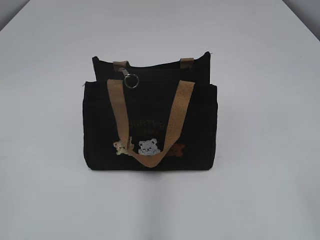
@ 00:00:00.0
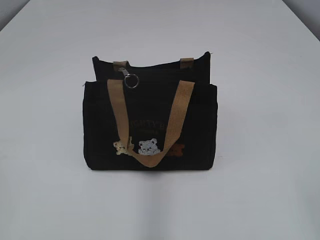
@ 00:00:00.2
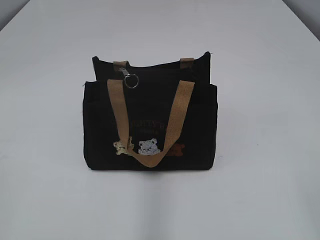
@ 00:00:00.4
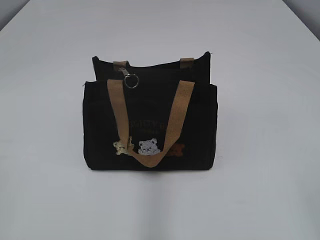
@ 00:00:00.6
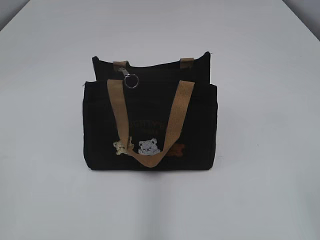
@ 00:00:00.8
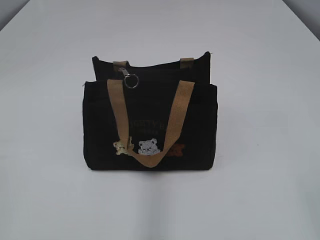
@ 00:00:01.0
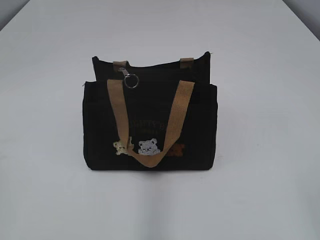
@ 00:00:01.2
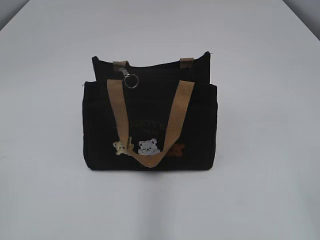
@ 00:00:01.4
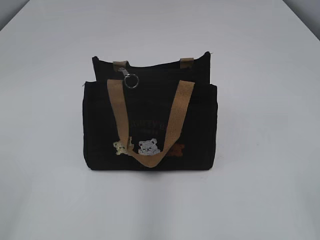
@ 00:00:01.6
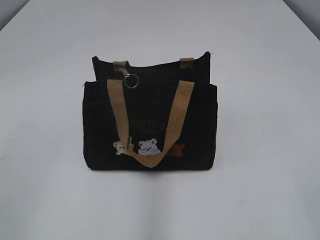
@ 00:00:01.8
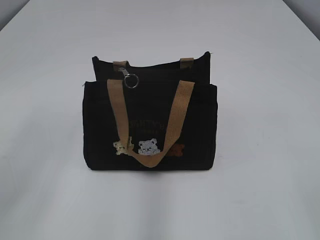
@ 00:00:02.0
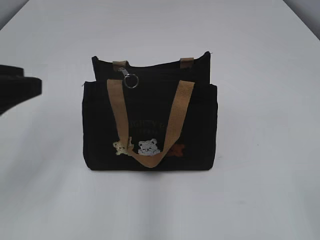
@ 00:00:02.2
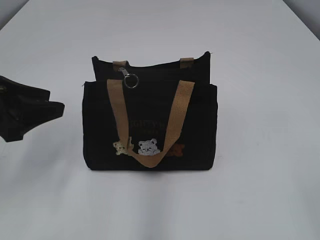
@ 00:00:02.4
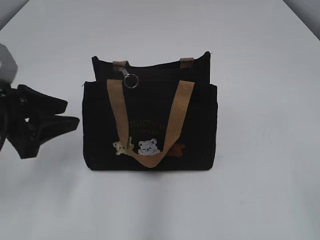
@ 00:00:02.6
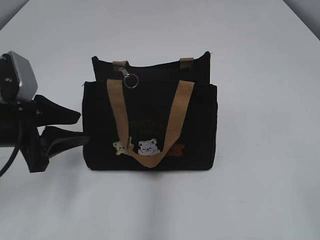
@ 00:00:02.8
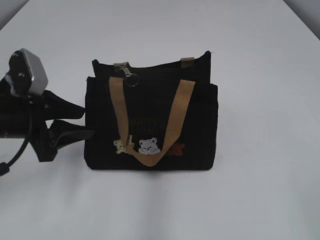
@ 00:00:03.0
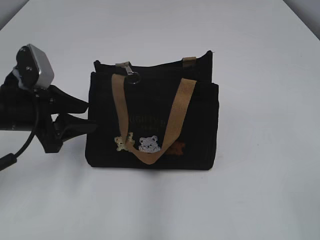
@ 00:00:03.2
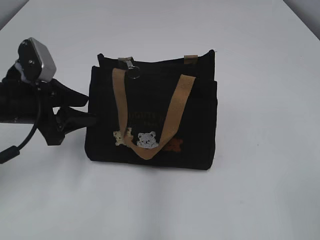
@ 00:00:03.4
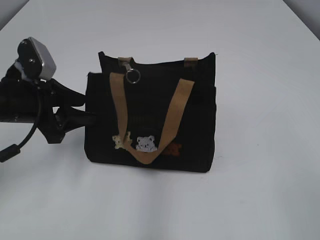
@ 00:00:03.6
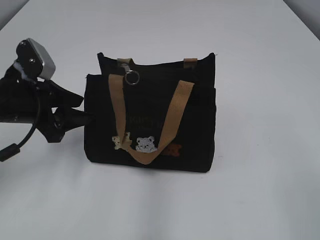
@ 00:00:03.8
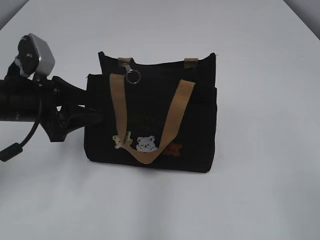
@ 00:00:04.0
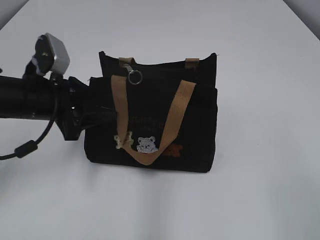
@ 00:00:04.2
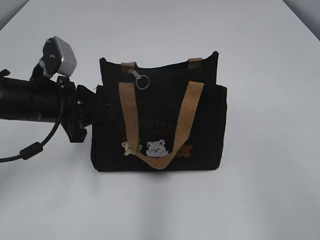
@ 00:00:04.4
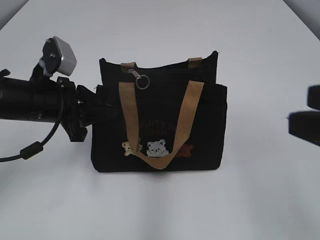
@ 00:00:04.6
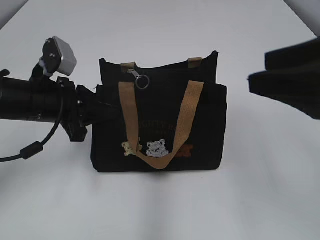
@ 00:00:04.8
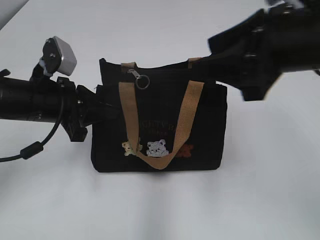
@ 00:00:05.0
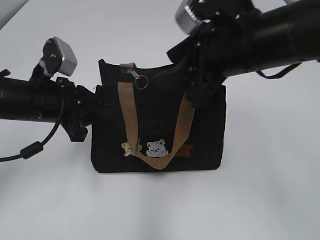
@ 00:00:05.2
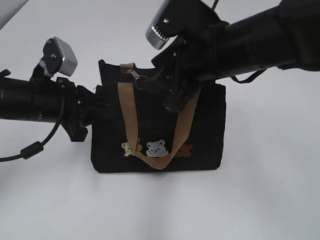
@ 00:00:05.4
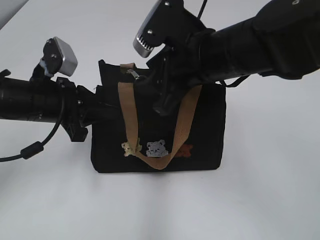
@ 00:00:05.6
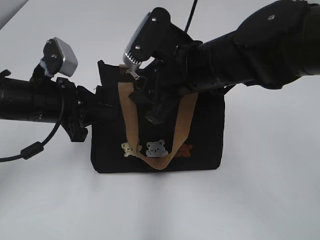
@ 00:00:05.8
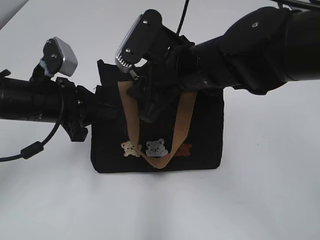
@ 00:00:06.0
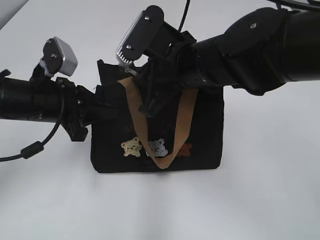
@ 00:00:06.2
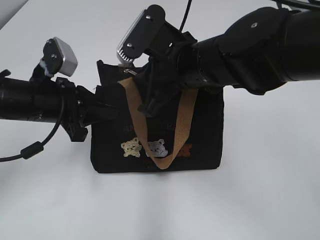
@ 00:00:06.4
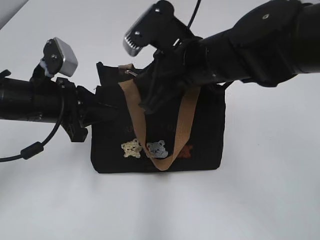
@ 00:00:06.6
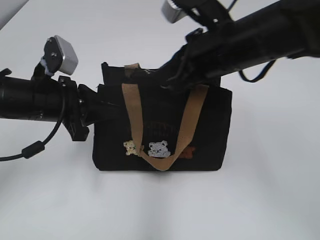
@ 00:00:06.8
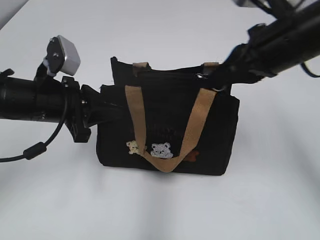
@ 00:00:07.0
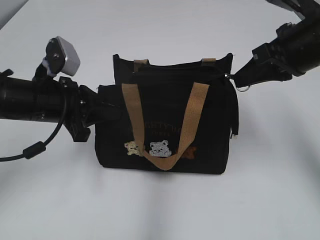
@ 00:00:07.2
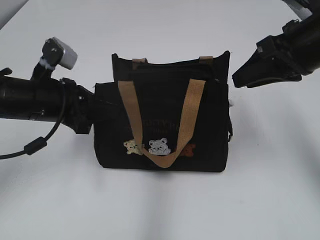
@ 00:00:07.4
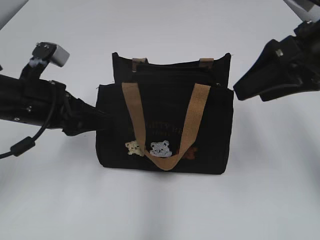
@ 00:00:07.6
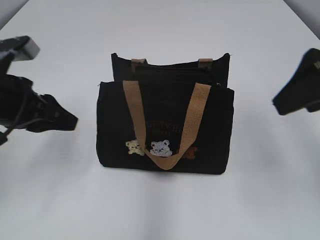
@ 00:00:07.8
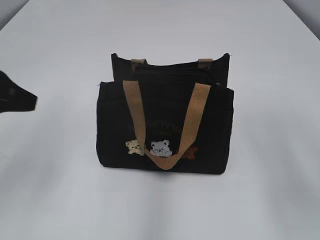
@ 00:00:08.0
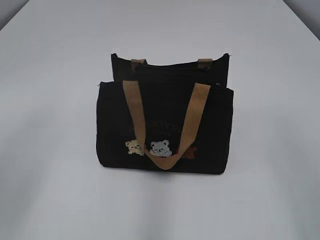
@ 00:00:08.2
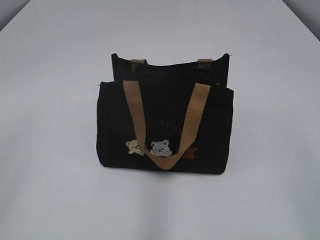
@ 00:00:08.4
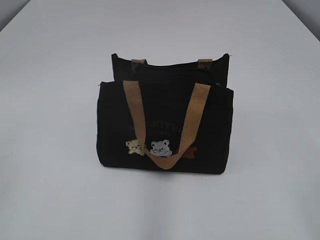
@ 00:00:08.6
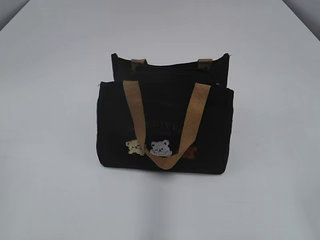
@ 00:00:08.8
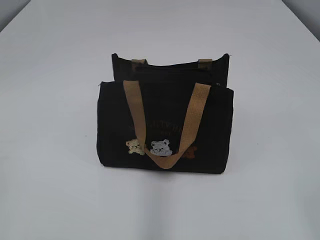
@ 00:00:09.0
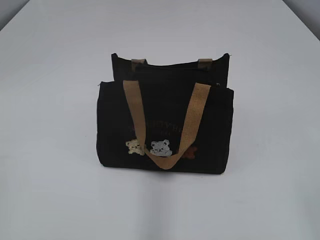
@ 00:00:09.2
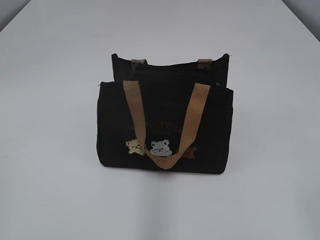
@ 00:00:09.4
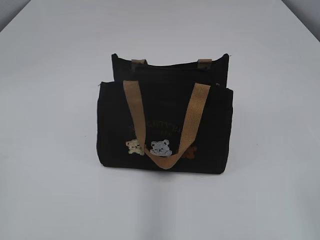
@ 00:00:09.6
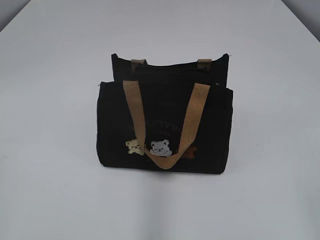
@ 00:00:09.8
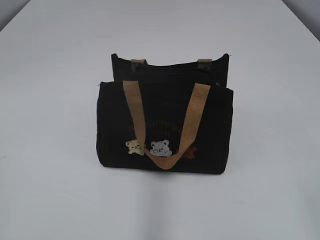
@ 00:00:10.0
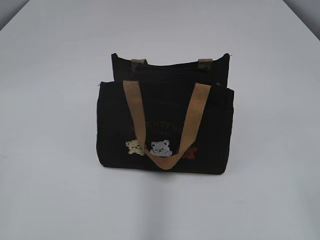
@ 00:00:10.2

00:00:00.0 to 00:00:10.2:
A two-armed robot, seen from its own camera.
Step, 00:00:00.0 to 00:00:07.2: Pull open the zipper with your right hand.
Step, 00:00:07.4 to 00:00:07.6: Hold the bag with your left hand.
00:00:01.4 to 00:00:03.0: The left gripper shifts roughly 25 cm forward and downward, and opens.
00:00:03.0 to 00:00:04.4: The right gripper shifts by roughly 5 cm. Meanwhile the left gripper changes place by approximately 5 cm, and closes up.
00:00:04.4 to 00:00:05.8: The right gripper moves forward and to the left, some 30 cm.
00:00:05.8 to 00:00:07.2: The right gripper travels to the right by some 15 cm, and closes its fingers.
00:00:07.2 to 00:00:08.8: The left gripper moves backward, to the left and upward, some 30 cm, and opens. The right gripper travels backward by some 30 cm, and opens.

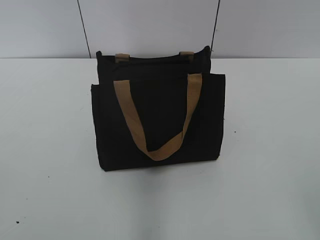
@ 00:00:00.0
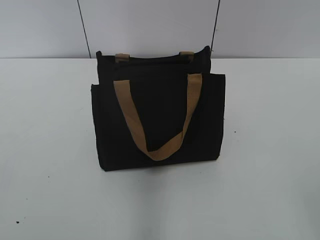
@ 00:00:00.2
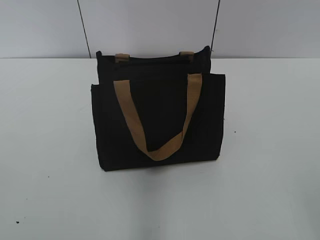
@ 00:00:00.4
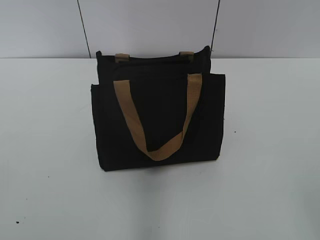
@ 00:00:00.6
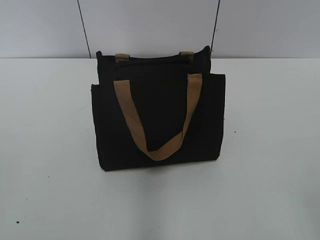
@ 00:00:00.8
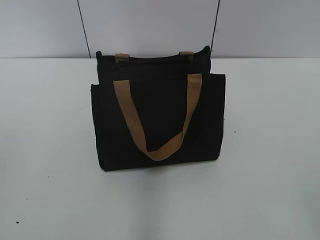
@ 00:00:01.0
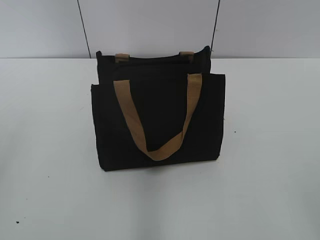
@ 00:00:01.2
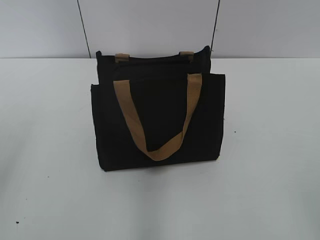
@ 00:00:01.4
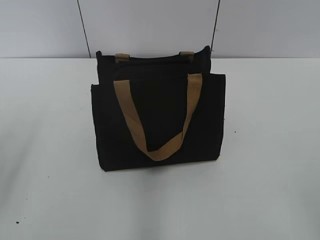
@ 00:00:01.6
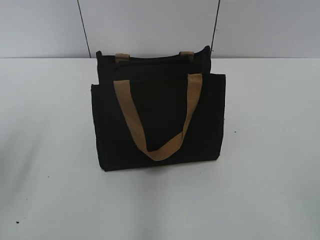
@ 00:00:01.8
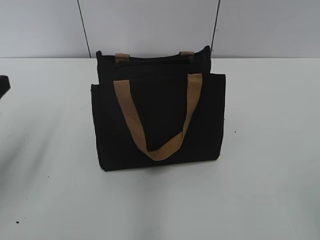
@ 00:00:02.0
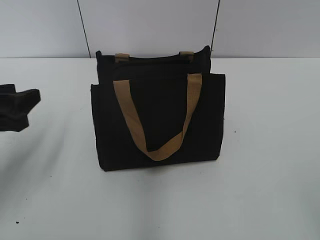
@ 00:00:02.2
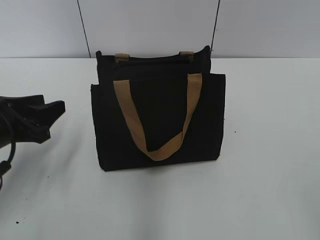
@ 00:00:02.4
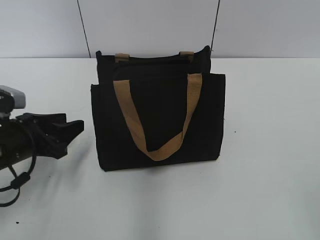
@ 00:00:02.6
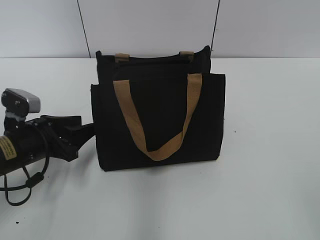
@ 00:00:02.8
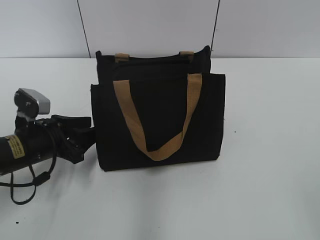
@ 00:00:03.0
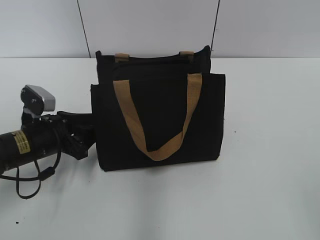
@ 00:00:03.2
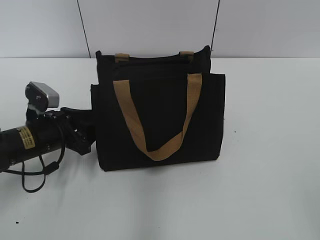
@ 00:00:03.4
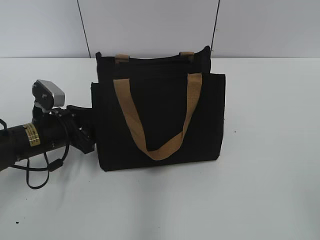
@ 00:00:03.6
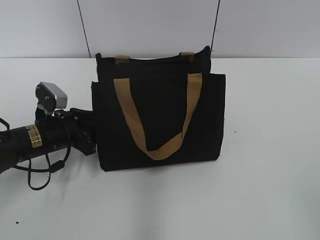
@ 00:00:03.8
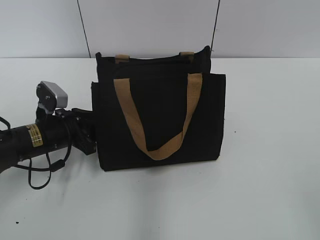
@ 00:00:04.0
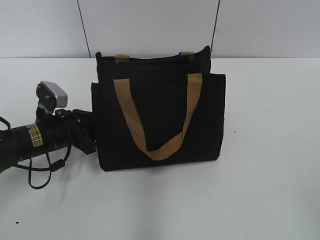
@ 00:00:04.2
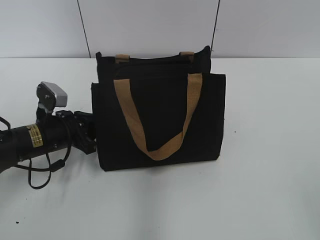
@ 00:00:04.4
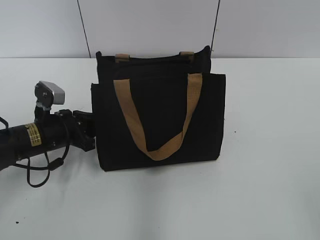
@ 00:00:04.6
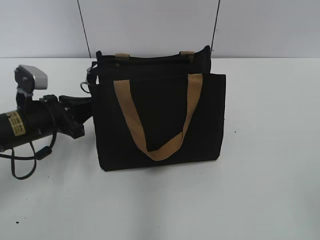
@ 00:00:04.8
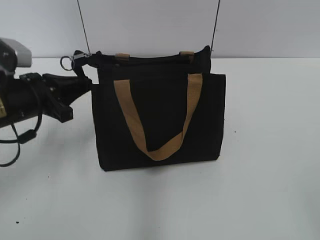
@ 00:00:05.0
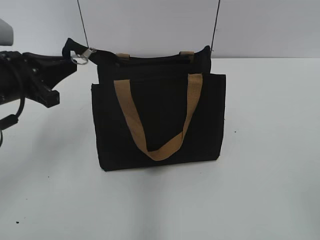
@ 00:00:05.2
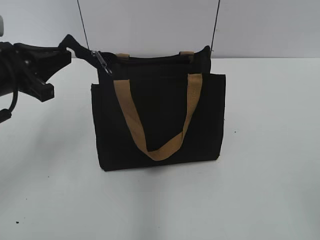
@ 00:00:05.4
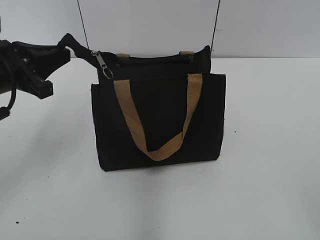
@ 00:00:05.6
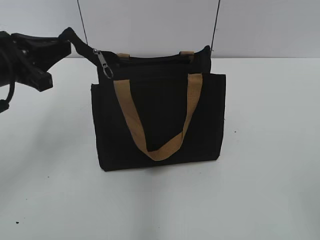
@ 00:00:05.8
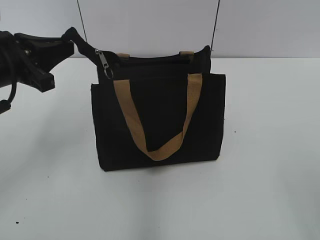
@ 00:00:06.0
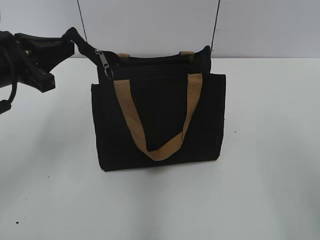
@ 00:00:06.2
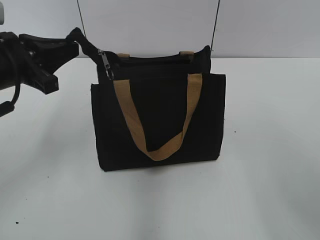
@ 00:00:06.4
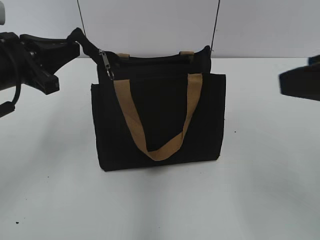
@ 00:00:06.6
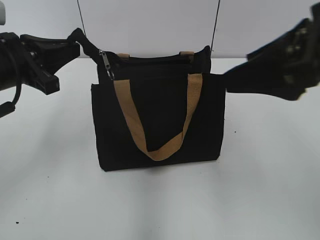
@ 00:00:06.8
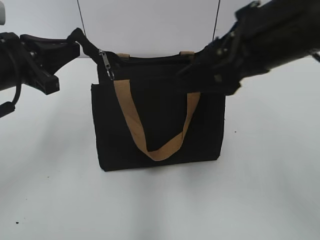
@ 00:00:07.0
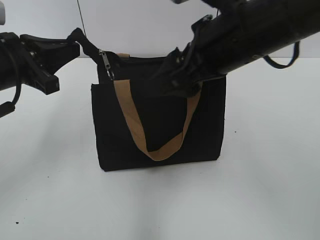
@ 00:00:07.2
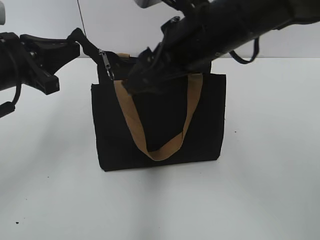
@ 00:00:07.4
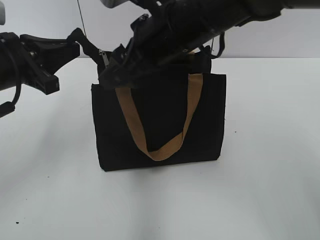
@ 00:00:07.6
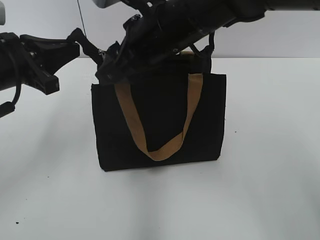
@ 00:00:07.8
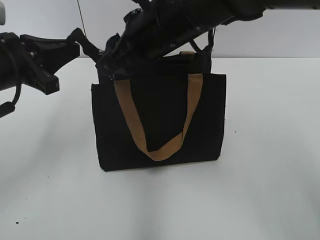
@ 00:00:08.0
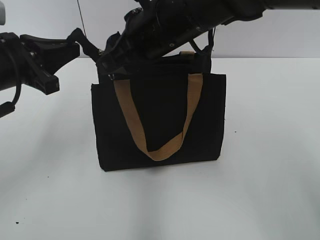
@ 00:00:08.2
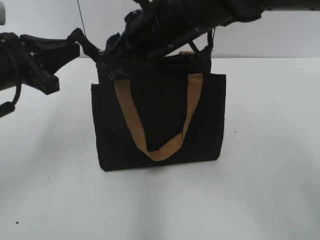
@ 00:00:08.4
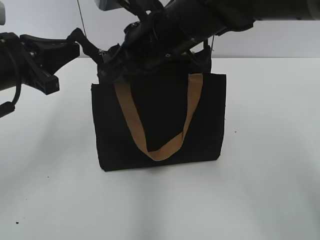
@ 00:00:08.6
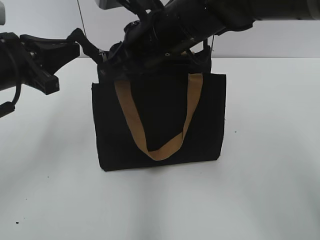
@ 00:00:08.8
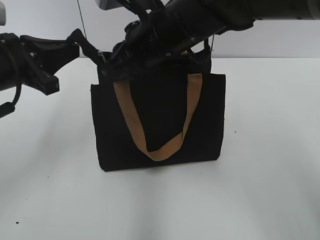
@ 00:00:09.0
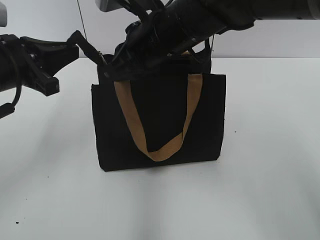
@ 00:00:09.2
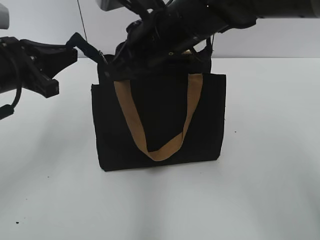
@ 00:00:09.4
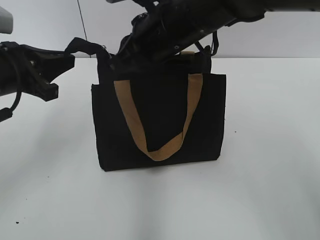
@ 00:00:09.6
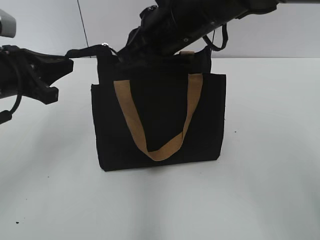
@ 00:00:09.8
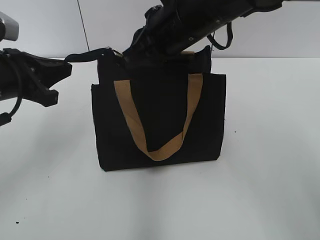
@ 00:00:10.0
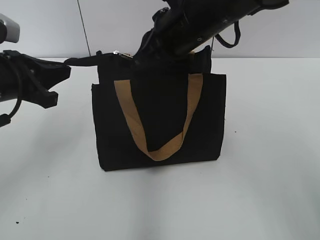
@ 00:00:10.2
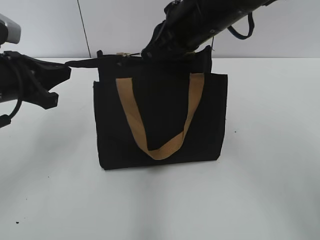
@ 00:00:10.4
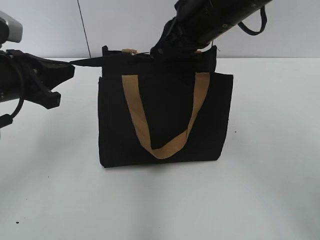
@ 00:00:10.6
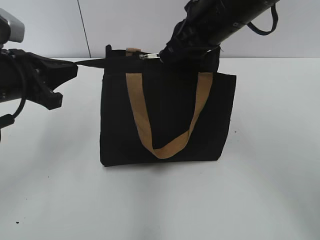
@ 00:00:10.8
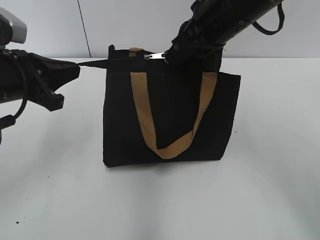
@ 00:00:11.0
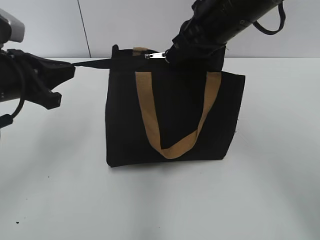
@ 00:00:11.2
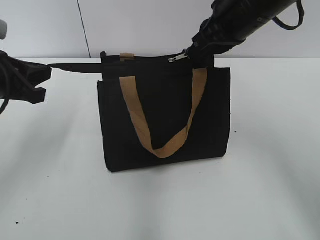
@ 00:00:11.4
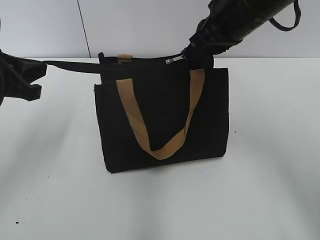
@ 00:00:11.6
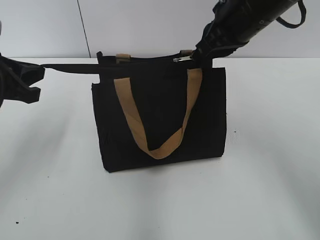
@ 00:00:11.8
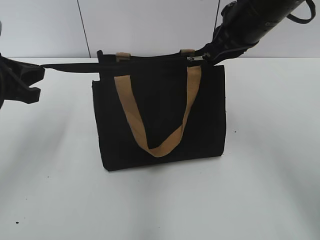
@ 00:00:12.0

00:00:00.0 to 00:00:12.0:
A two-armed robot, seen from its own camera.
00:00:01.6 to 00:00:03.0: The left gripper goes about 25 cm downward, forward and to the right.
00:00:03.0 to 00:00:04.4: The left gripper closes.
00:00:04.4 to 00:00:06.0: The left gripper goes roughly 15 cm upward.
00:00:06.0 to 00:00:07.6: The right gripper moves forward and to the left, about 40 cm.
00:00:07.6 to 00:00:09.0: The right gripper closes.
00:00:09.0 to 00:00:10.4: The right gripper travels to the right by about 5 cm.
00:00:10.4 to 00:00:12.0: The right gripper heads to the right, covering approximately 5 cm.
